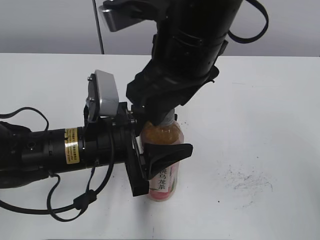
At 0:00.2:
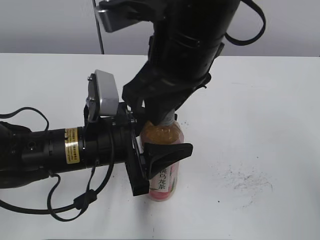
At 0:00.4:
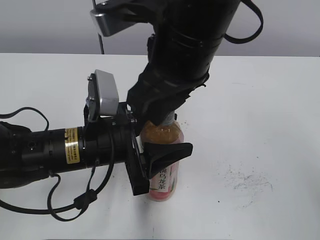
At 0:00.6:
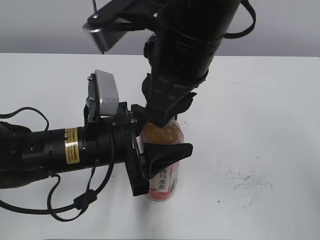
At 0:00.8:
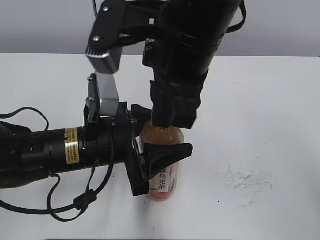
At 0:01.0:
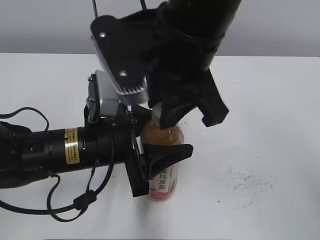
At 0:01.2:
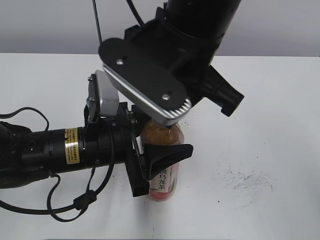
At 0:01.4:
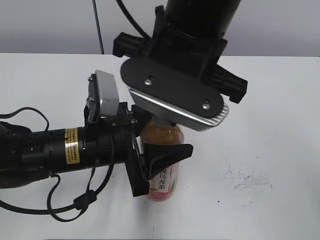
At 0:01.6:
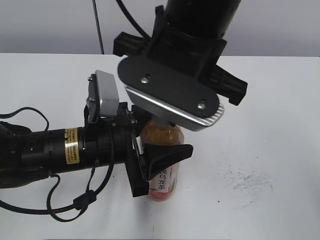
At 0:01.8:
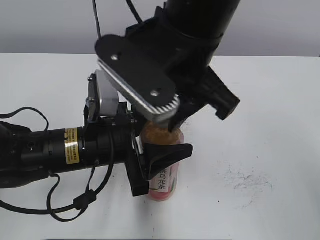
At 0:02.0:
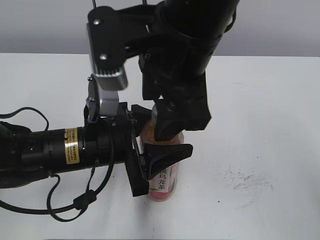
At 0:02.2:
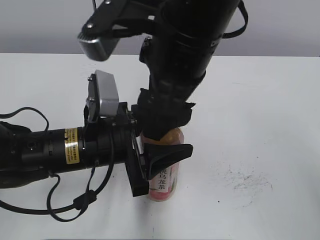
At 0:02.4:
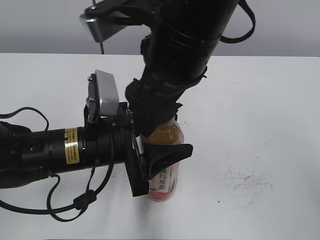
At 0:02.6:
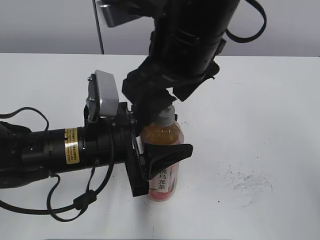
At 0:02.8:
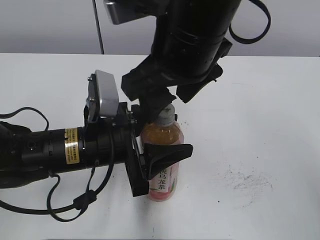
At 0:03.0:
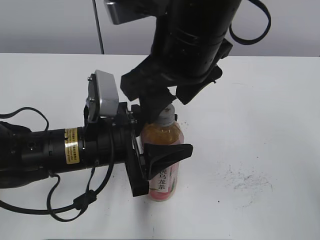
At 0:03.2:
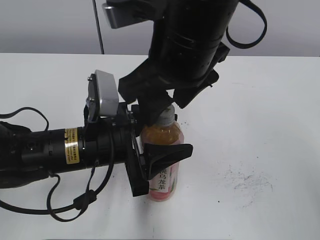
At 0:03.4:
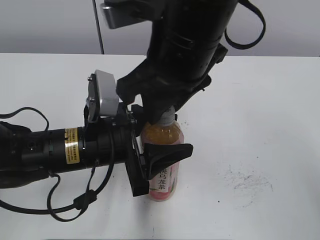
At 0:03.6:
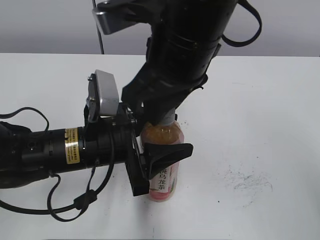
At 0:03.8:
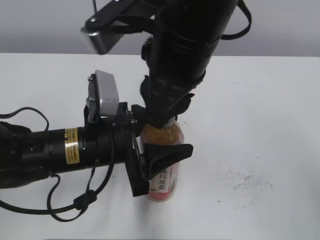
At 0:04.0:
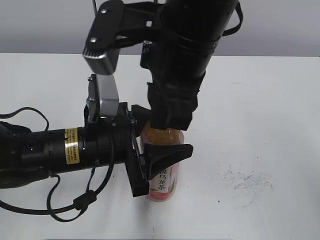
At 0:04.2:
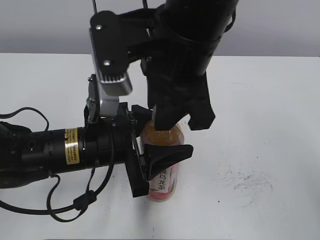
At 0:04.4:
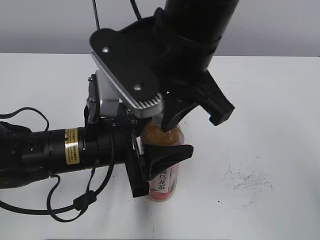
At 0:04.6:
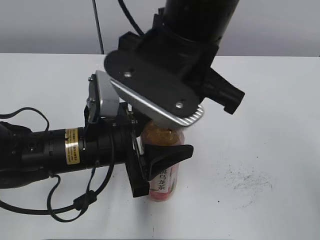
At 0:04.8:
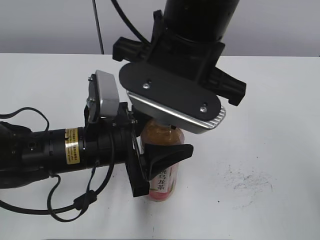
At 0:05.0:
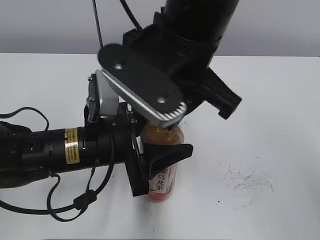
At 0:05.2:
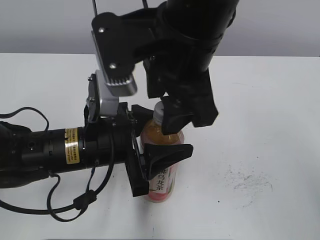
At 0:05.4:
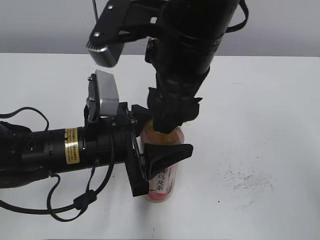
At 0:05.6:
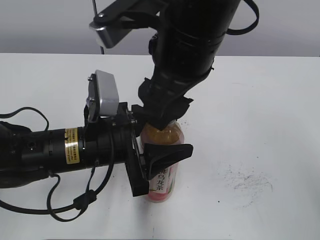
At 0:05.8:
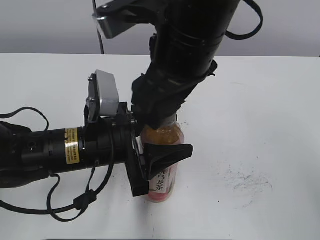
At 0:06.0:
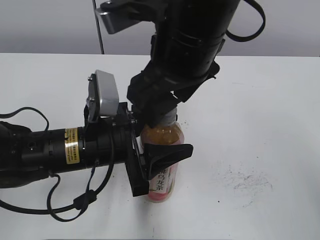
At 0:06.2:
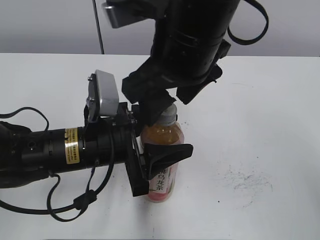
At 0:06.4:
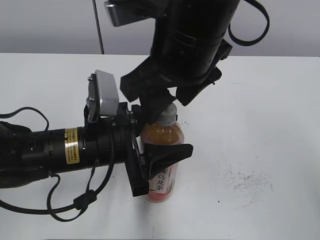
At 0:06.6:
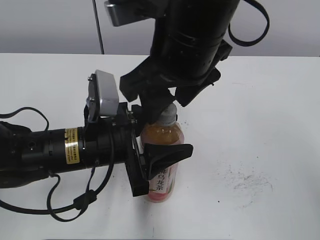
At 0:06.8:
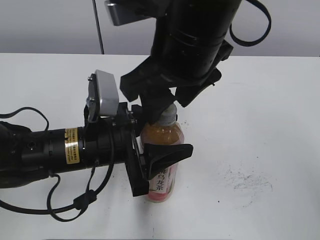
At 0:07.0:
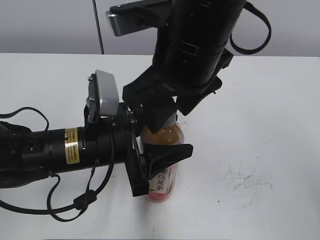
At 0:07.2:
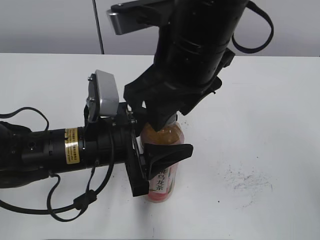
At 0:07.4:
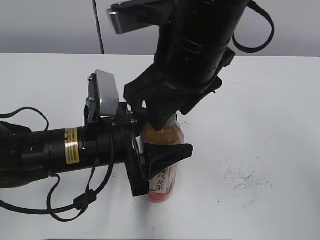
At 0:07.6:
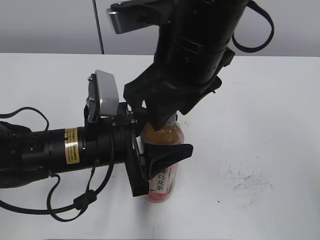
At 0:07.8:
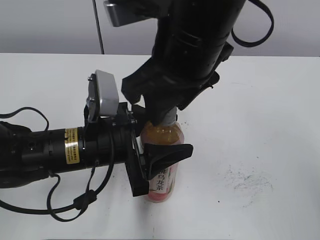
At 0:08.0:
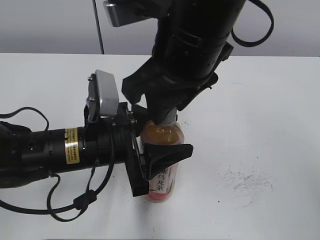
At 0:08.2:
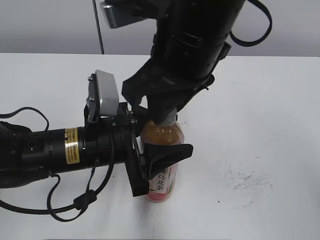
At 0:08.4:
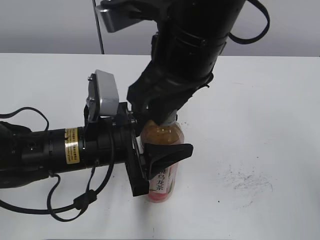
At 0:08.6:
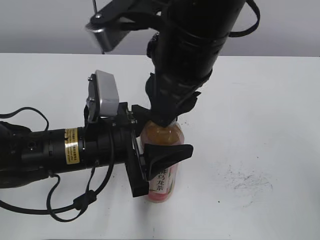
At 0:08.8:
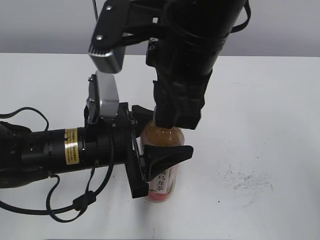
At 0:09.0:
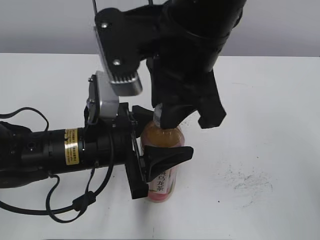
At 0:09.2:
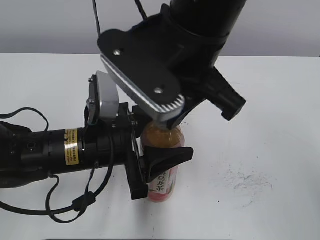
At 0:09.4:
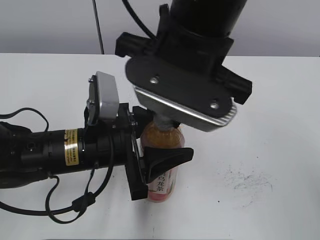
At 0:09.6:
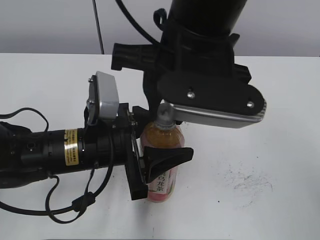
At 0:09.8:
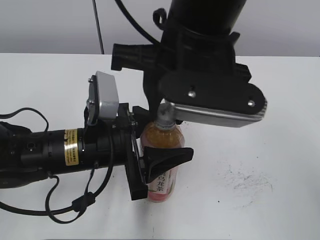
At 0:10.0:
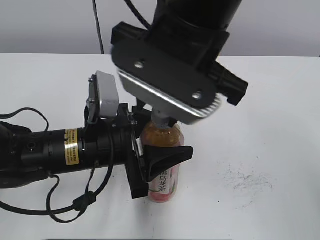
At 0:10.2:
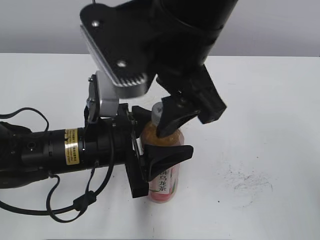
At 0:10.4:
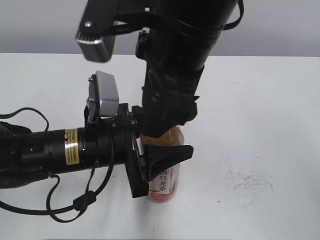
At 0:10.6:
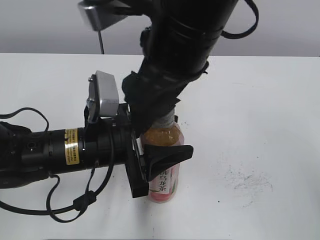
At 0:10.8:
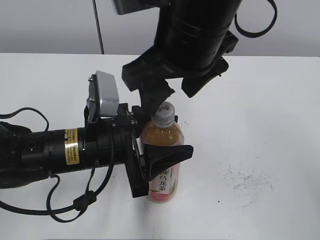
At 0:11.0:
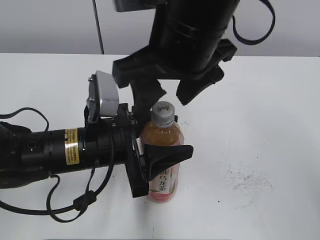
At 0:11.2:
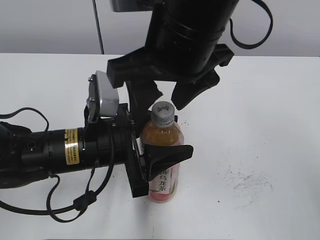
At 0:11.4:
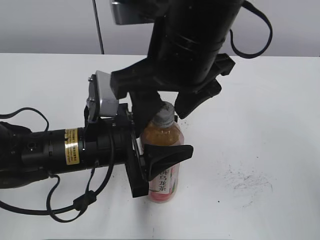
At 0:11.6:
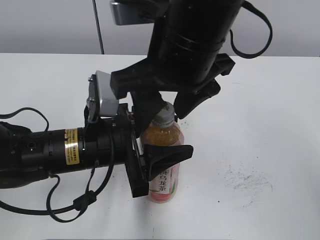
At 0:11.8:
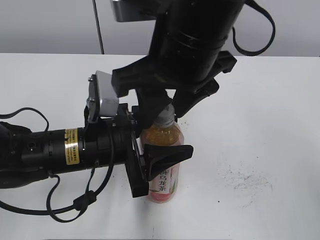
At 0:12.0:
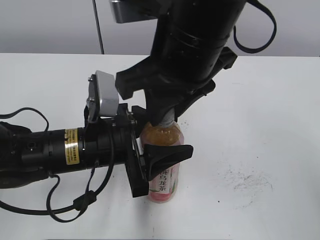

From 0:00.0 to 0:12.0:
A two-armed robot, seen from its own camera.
From 0:00.0 to 0:01.6: The right gripper closes up.
From 0:01.6 to 0:03.0: The right gripper opens up.
From 0:03.0 to 0:04.4: The right gripper closes its fingers.
From 0:04.4 to 0:06.0: The right gripper opens.
From 0:06.0 to 0:07.6: The right gripper closes up.
From 0:07.6 to 0:09.0: The right gripper closes its fingers.
From 0:09.0 to 0:10.4: The right gripper opens.
From 0:10.4 to 0:12.0: The right gripper closes up.

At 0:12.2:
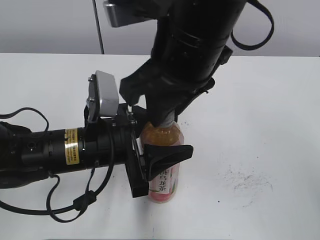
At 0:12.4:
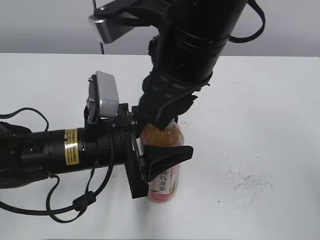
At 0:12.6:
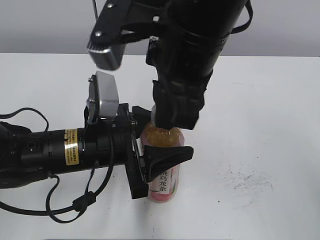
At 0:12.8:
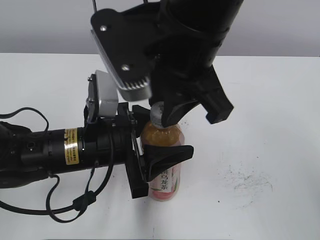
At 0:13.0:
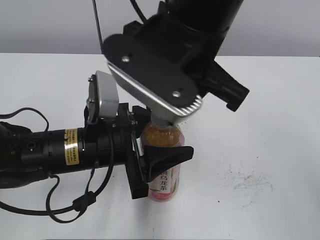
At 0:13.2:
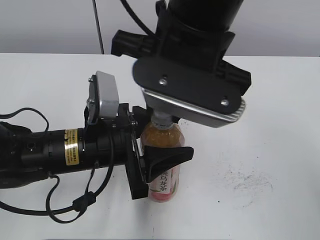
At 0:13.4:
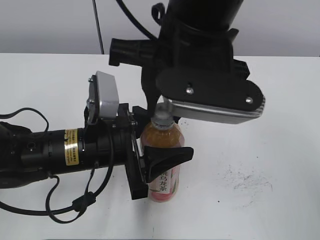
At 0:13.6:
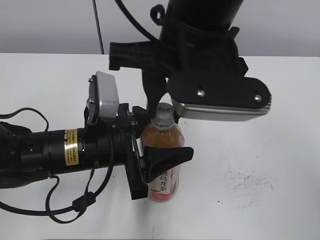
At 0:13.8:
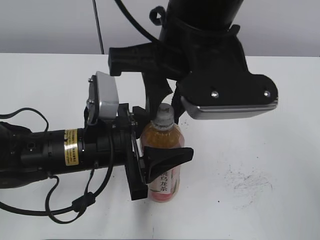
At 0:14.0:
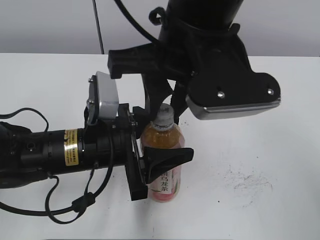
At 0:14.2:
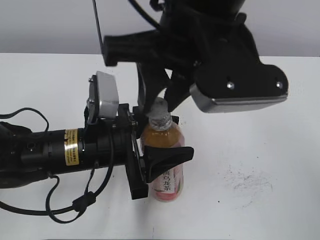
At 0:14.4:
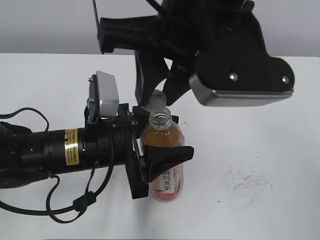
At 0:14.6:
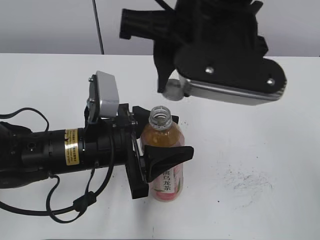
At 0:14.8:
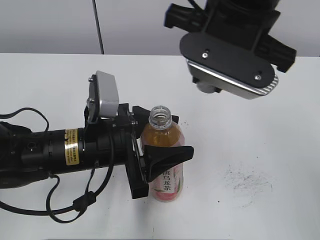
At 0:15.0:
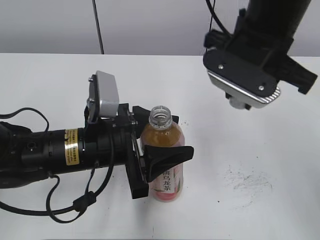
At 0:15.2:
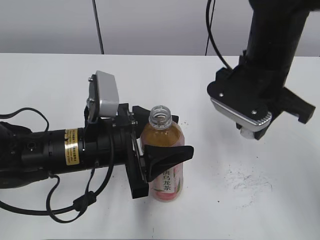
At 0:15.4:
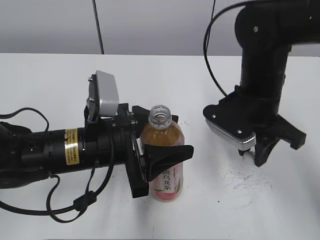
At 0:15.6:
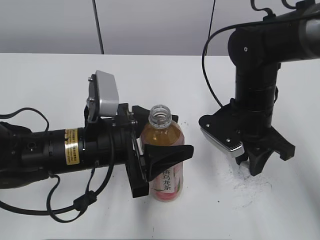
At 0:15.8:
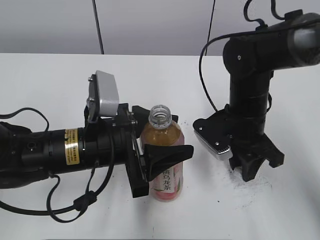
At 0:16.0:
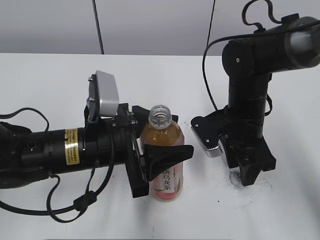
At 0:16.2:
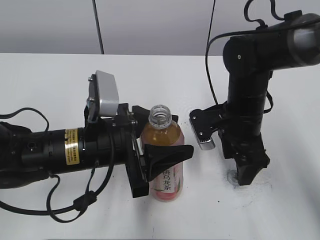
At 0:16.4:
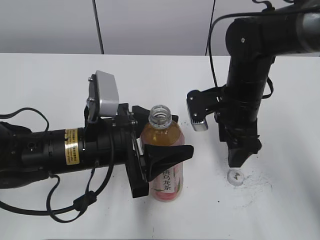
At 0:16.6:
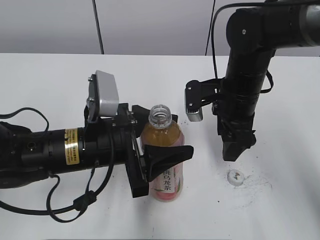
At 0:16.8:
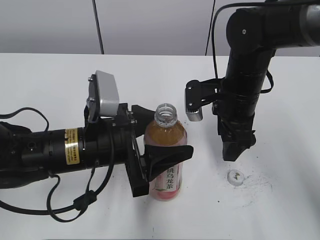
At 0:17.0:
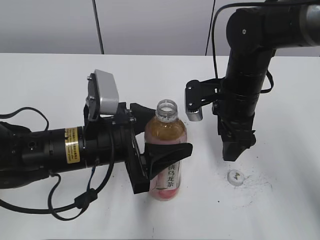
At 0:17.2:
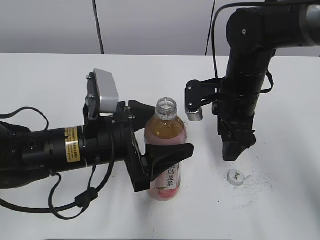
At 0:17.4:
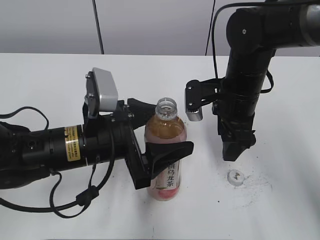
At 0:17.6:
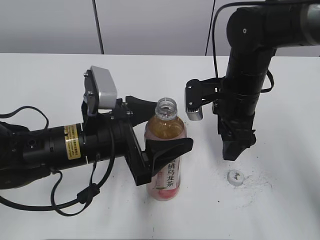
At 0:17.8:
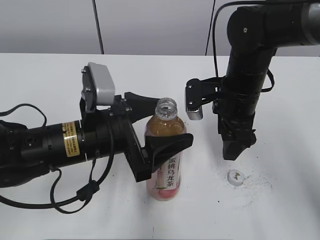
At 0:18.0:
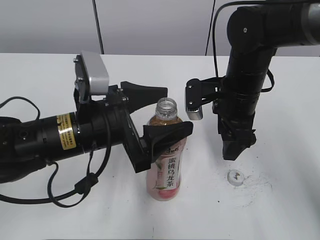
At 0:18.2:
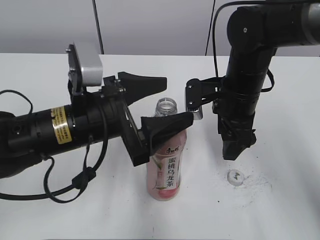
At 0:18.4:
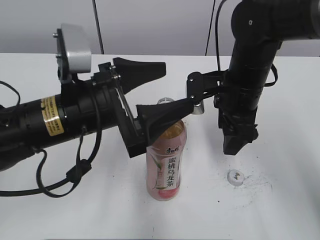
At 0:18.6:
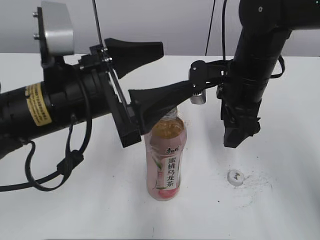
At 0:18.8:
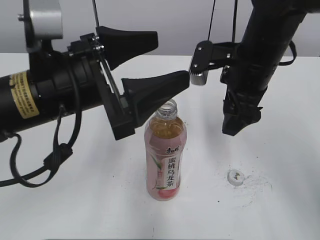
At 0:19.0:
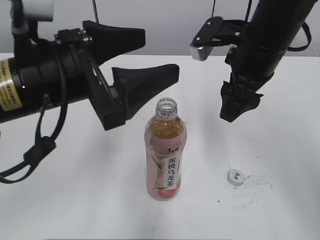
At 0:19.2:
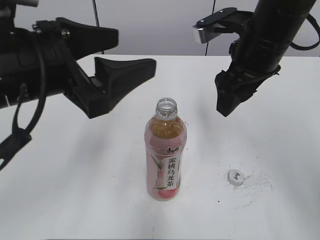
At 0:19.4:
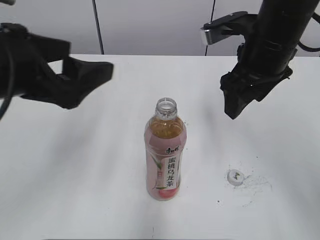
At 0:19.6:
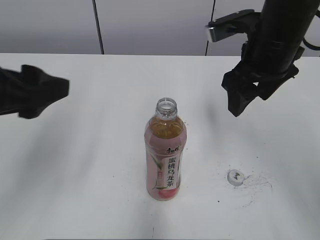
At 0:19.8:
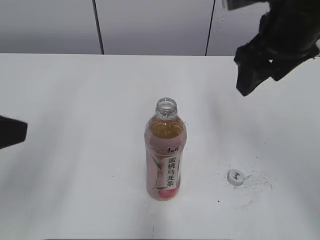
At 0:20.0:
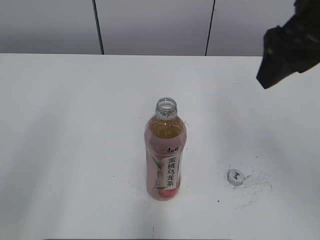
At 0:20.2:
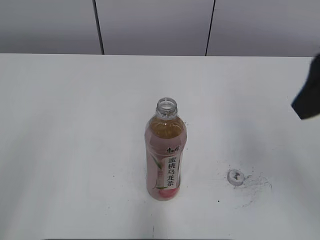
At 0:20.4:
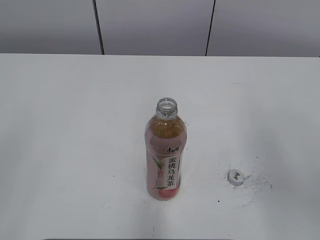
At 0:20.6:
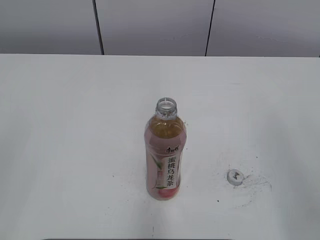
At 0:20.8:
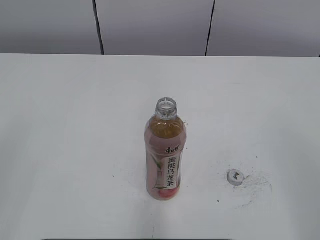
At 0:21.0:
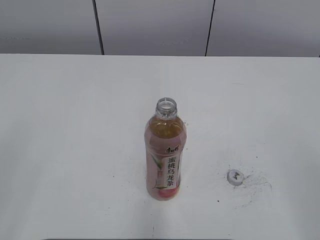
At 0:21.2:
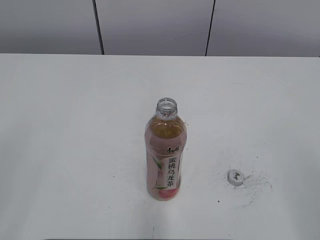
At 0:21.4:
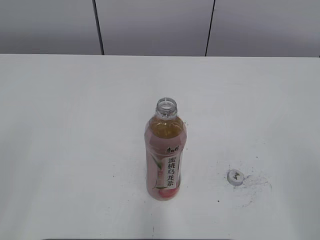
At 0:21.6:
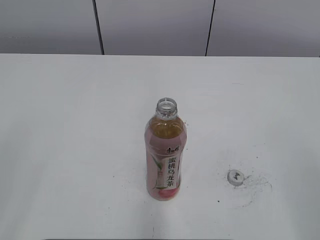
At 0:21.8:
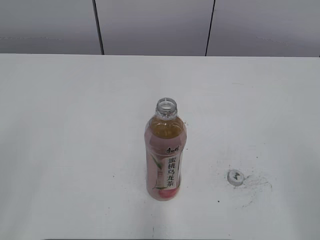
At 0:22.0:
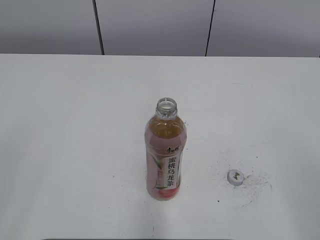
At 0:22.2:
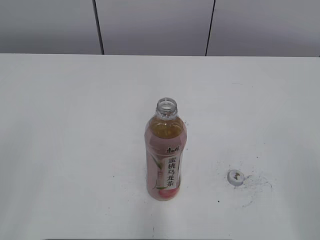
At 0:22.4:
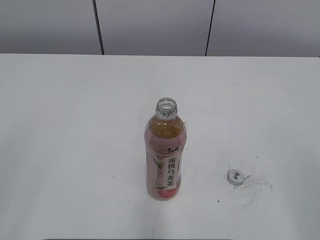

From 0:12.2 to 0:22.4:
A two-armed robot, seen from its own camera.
Step, from 0:14.2 to 0:16.0: Place the bottle cap on the table with the right gripper.
Step, from 0:16.4 to 0:17.4: Place the bottle on the table with the left gripper.
From 0:13.6 to 0:15.2: The right gripper goes approximately 15 cm to the right, downward and forward.
From 0:15.2 to 0:16.6: The right gripper shifts approximately 5 cm downward, and opens up.
From 0:16.6 to 0:18.0: The left gripper opens its fingers.
From 0:18.0 to 0:19.4: The right gripper travels upward by approximately 10 cm; the left gripper shifts some 15 cm upward and to the left.
From 0:19.4 to 0:21.0: The right gripper moves backward and to the right, some 35 cm, while the left gripper is displaced backward and to the left by some 25 cm, and closes up.
